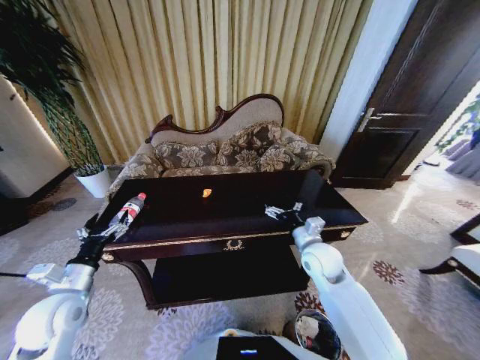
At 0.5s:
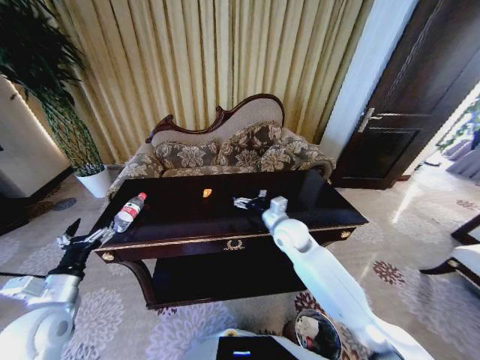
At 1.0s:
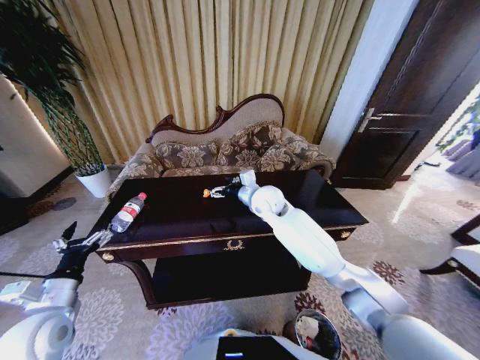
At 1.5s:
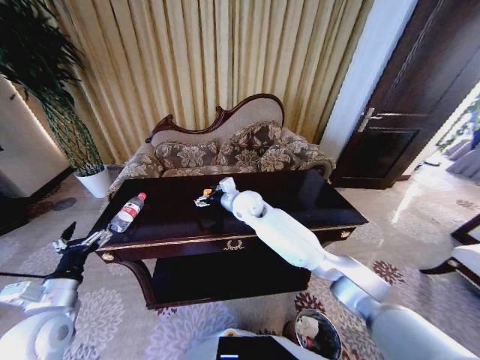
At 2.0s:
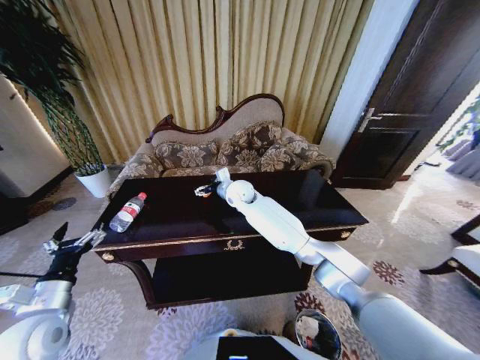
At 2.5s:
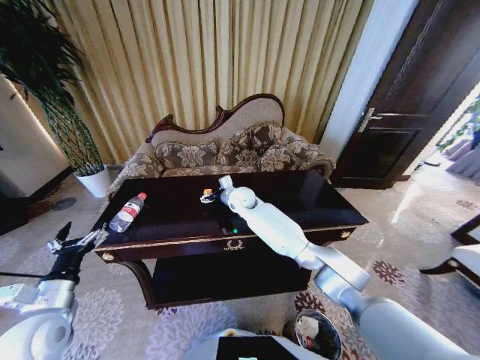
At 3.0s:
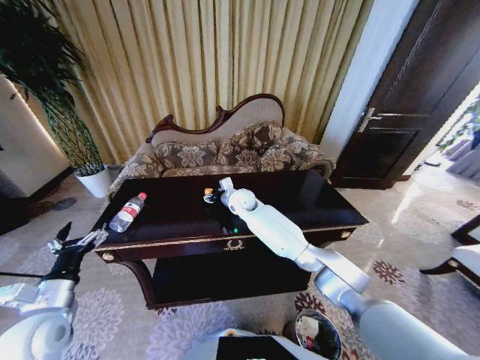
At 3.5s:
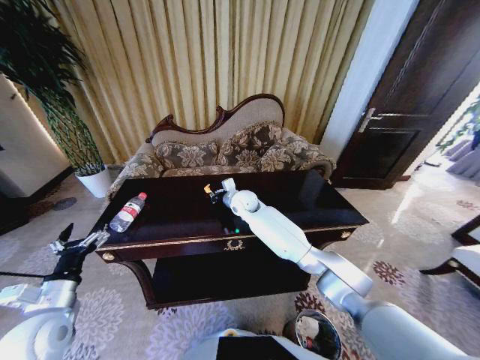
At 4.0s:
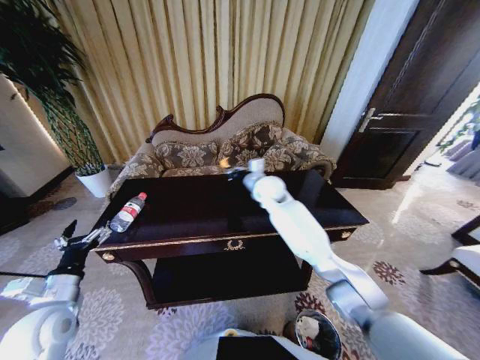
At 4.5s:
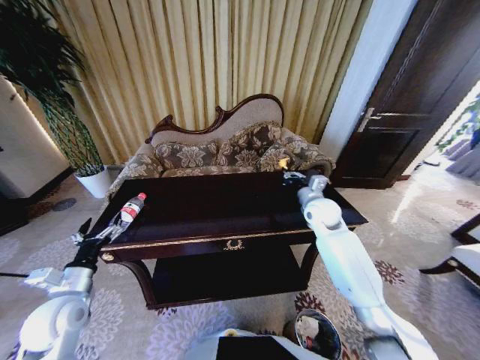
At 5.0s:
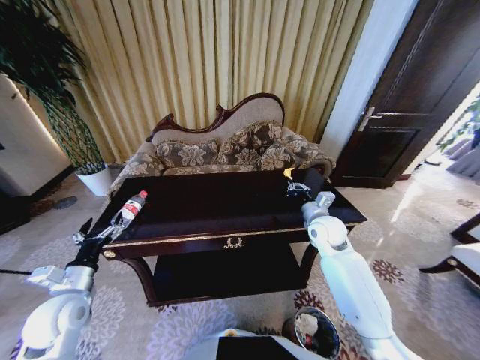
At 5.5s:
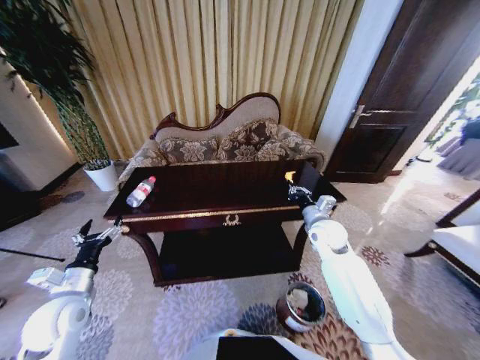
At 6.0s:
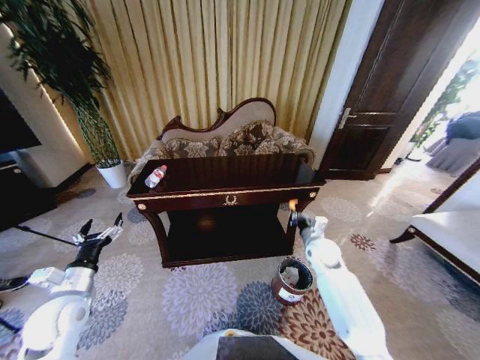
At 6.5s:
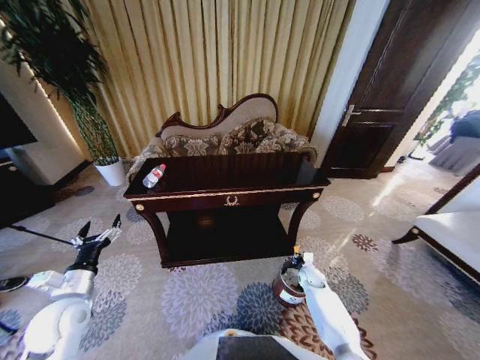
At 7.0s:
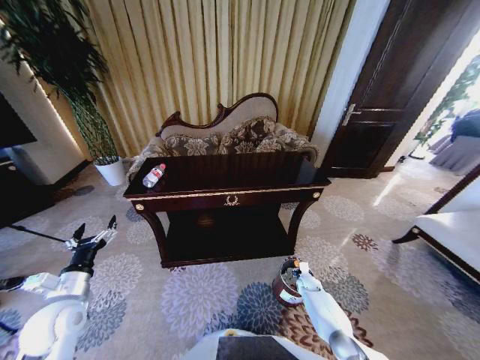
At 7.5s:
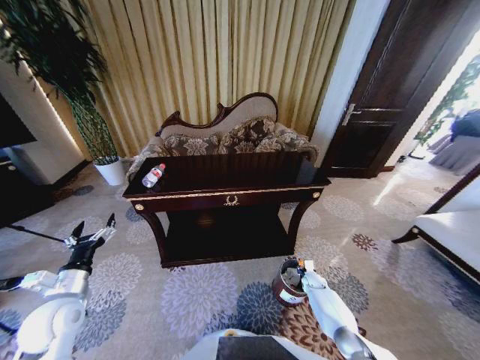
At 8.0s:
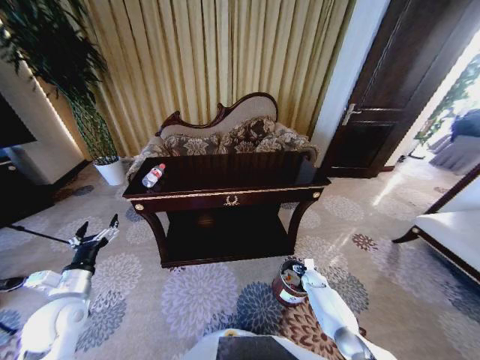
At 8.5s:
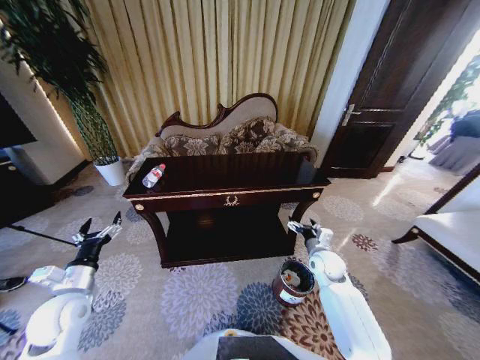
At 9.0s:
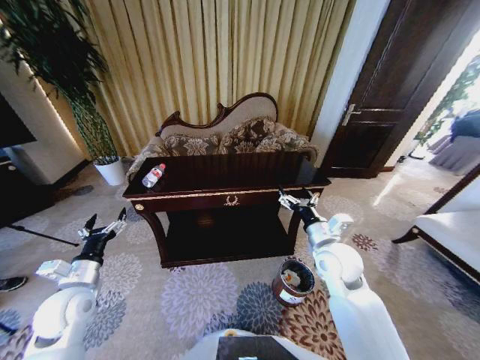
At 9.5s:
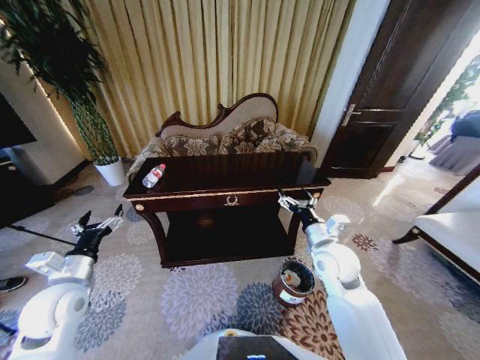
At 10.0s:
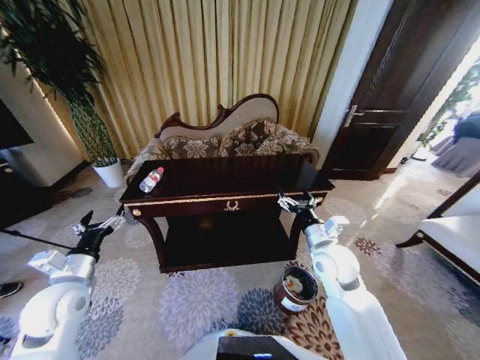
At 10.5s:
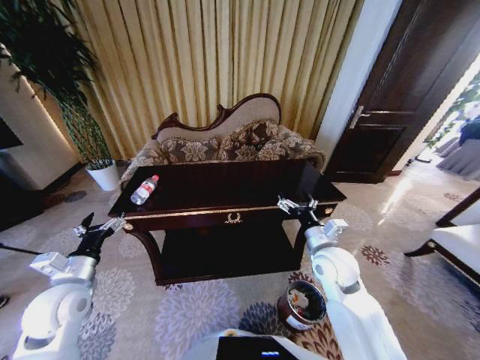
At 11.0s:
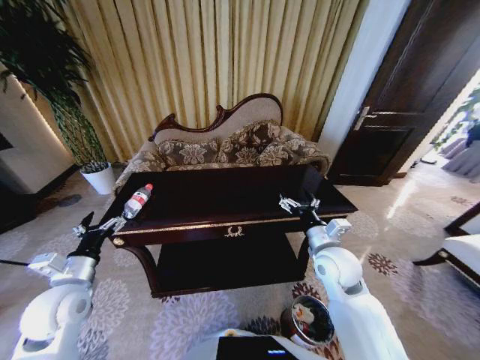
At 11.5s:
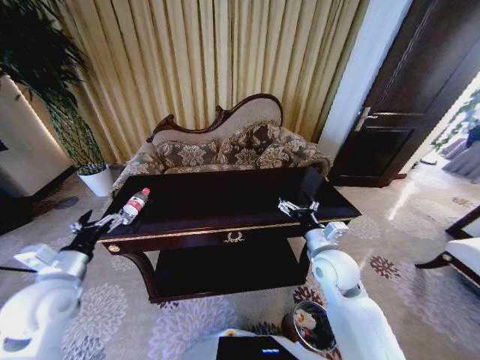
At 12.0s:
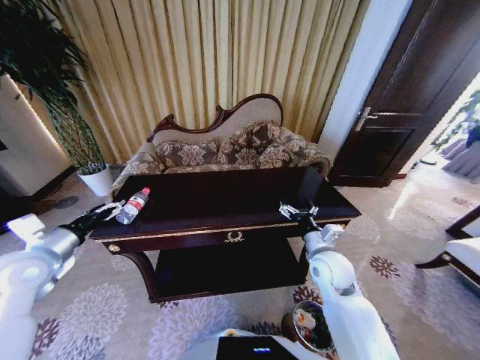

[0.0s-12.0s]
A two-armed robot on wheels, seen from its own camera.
Task of the whole recording: Move to the front of the table and place the trash on the table into the trash bin.
0.0s to 2.0s: The right gripper shifts roughly 30 cm forward and to the left.
2.0s to 4.0s: The right gripper shifts about 10 cm to the right, and closes its fingers.
4.0s to 6.0s: The right gripper moves to the right, downward and backward, roughly 25 cm.
6.0s to 8.0s: The right gripper goes roughly 25 cm downward, and opens up.
8.0s to 10.0s: The left gripper changes place by about 5 cm, while the right gripper moves upward, about 35 cm.
10.0s to 12.0s: The left gripper goes about 10 cm upward and to the left.

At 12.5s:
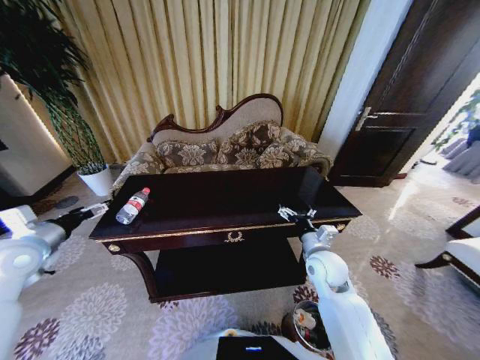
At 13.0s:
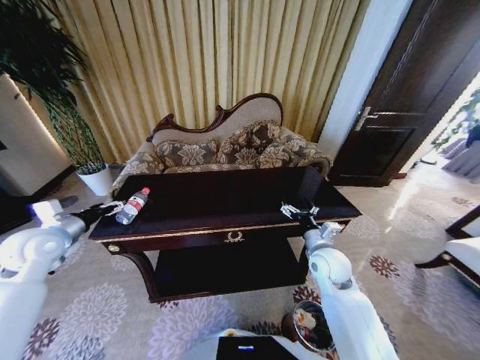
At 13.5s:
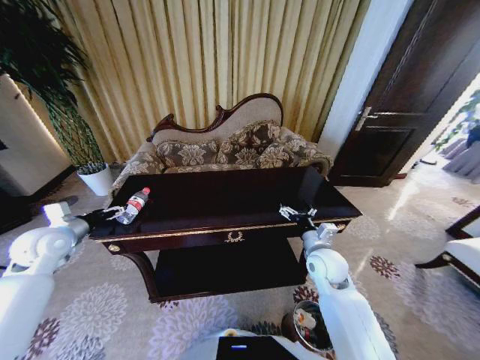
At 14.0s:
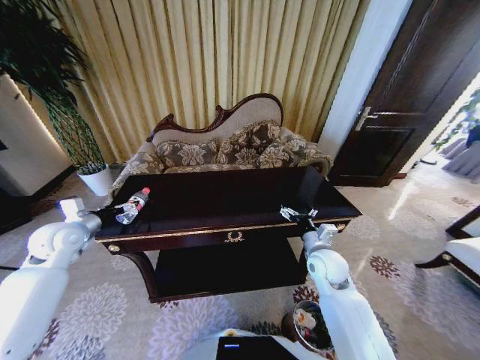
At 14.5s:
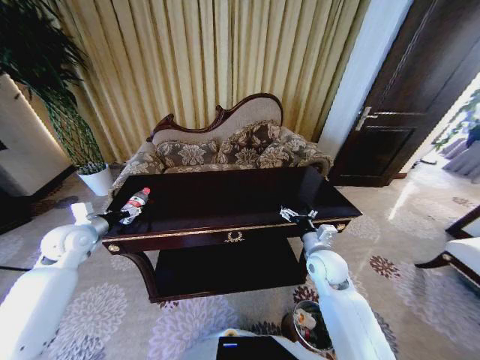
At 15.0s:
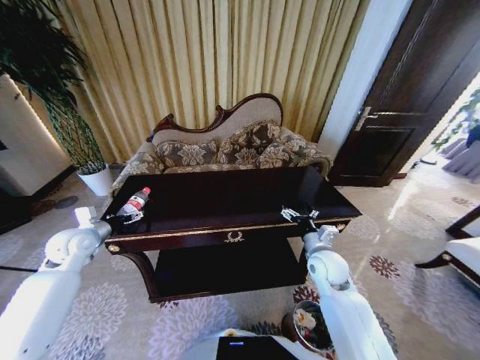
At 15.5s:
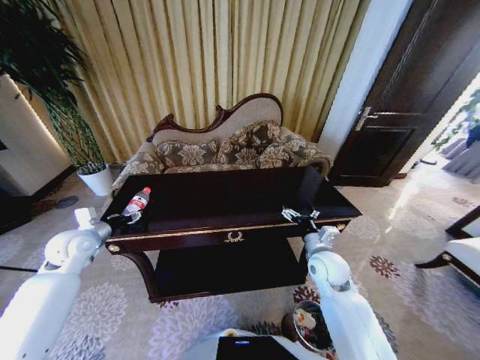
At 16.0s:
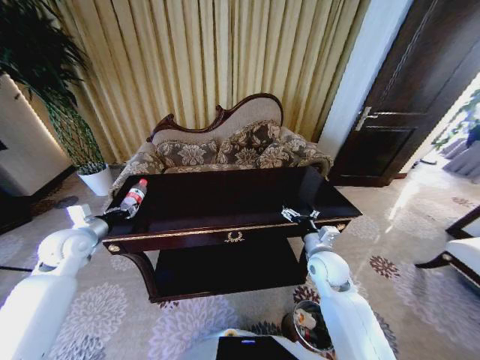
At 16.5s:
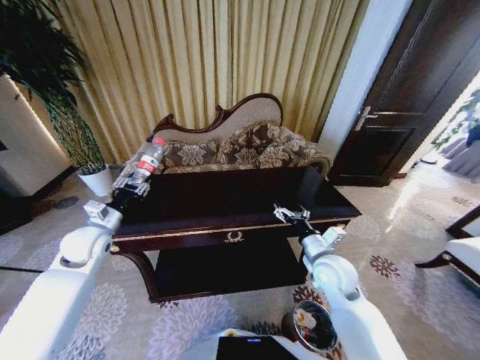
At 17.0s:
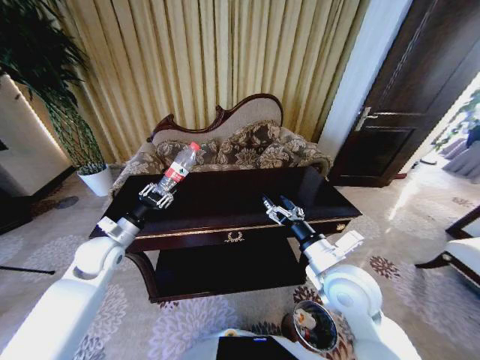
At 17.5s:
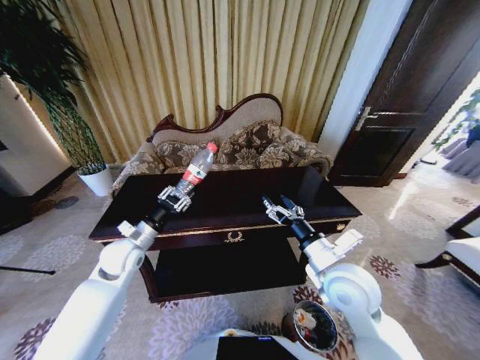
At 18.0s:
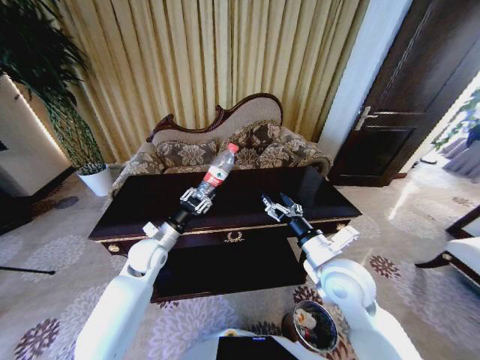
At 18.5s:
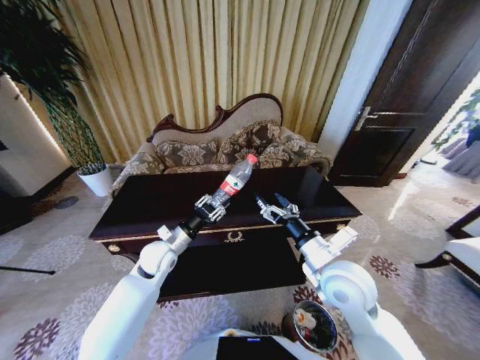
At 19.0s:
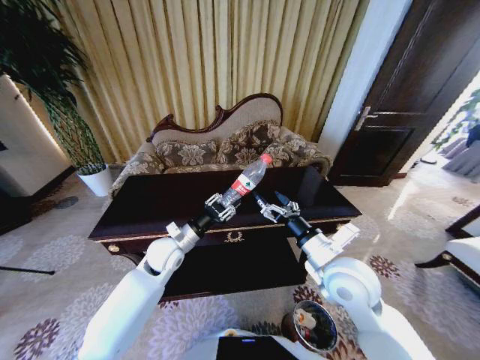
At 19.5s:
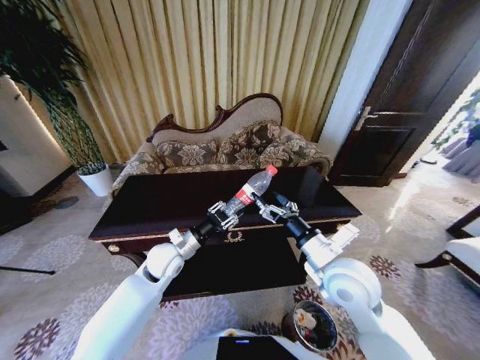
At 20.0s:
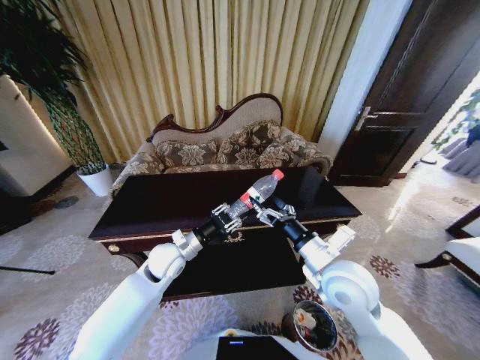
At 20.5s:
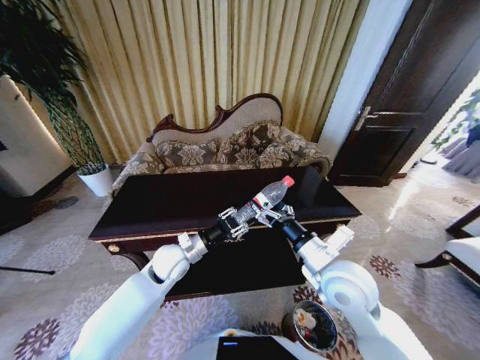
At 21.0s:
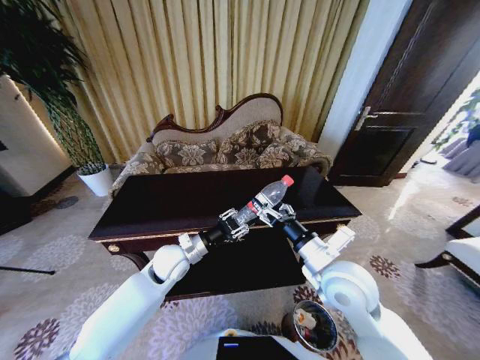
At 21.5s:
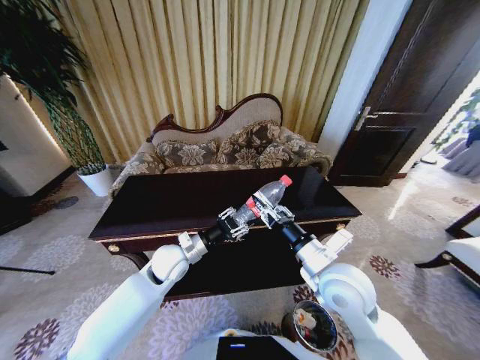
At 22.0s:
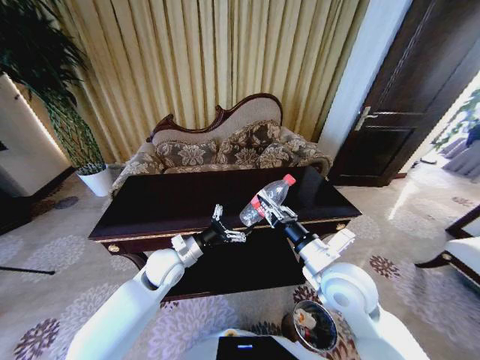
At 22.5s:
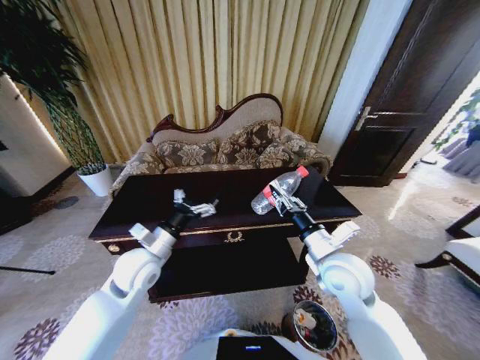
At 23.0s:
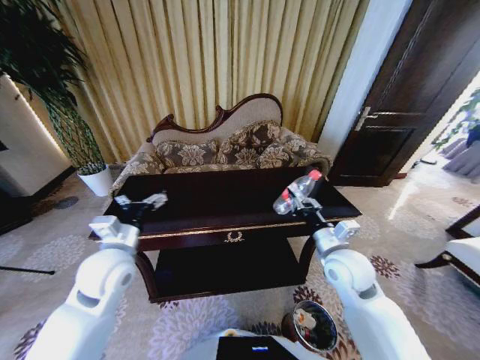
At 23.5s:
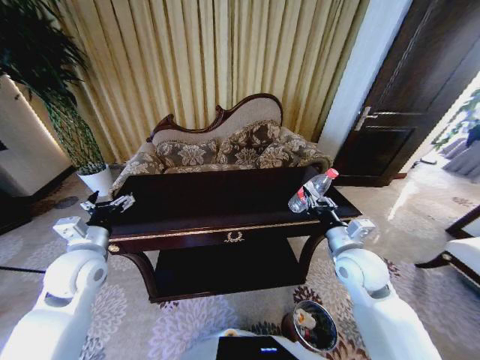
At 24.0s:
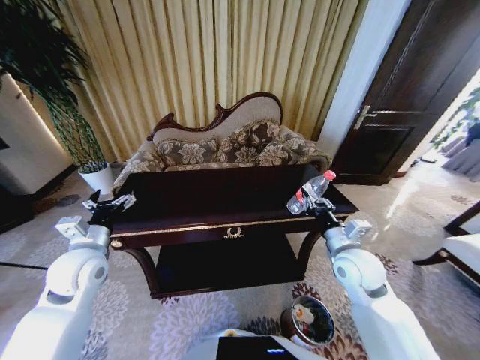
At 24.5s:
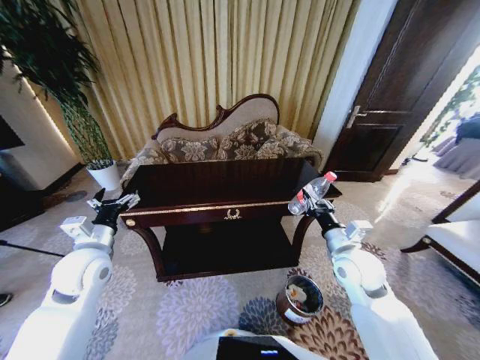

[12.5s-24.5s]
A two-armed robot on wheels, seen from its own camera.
Task of the whole recording: Move to the front of the table and place the trash on the table into the trash bin.
12.5s to 14.5s: The left gripper goes roughly 10 cm forward and downward.
14.5s to 16.5s: The left gripper shifts approximately 5 cm to the right, and closes up.
16.5s to 18.5s: The right gripper goes approximately 5 cm upward; the left gripper goes some 20 cm to the right and downward.
18.5s to 20.5s: The grippers stay close to where they were, moving slightly.
20.5s to 22.5s: The right gripper closes up, while the left gripper shifts roughly 10 cm to the left and upward, and opens its fingers.
22.5s to 24.5s: The left gripper heads to the left, covering about 10 cm; the right gripper goes roughly 5 cm to the right.

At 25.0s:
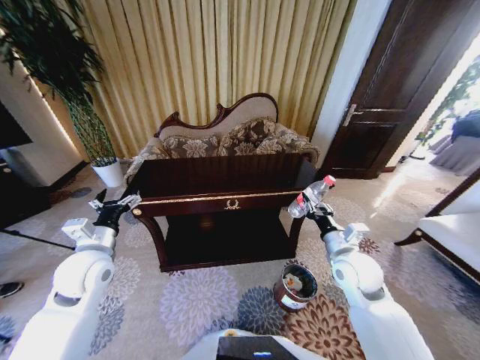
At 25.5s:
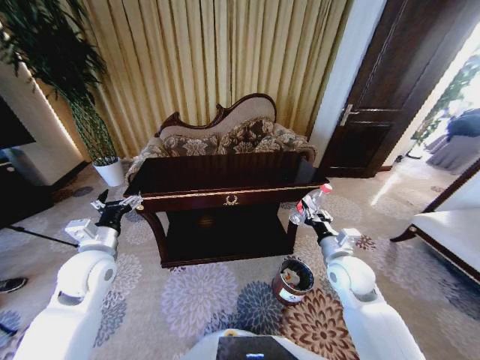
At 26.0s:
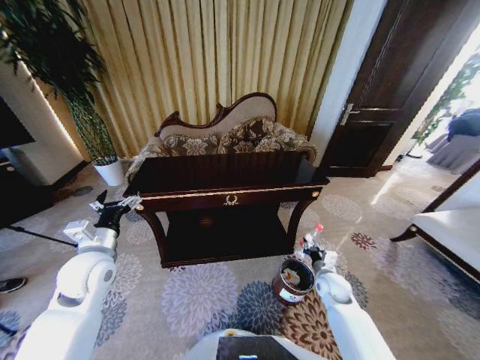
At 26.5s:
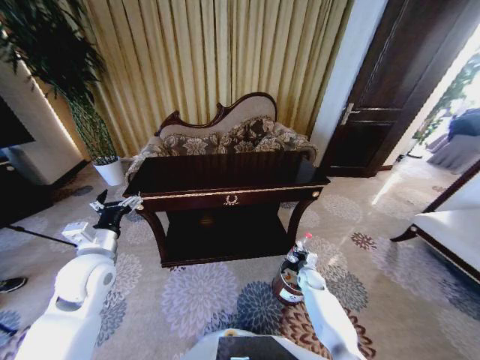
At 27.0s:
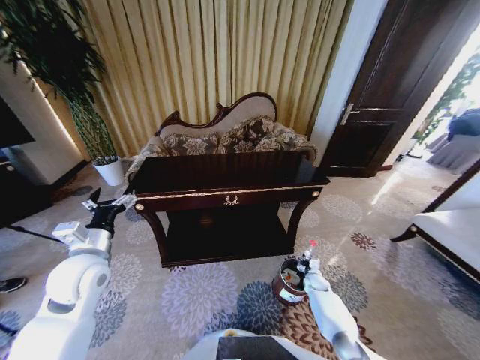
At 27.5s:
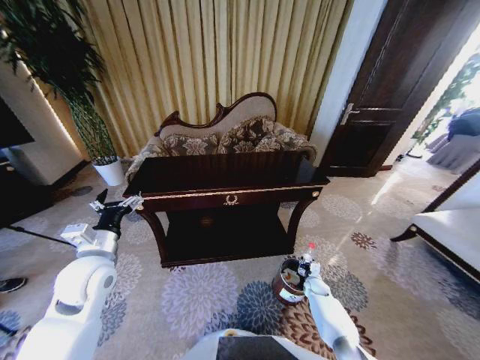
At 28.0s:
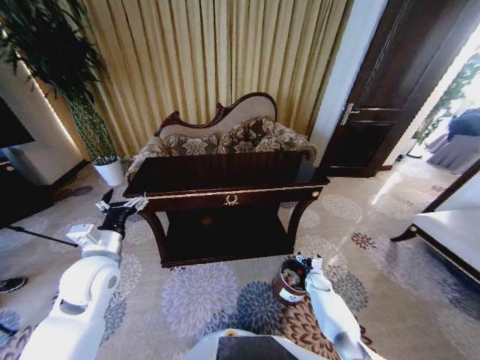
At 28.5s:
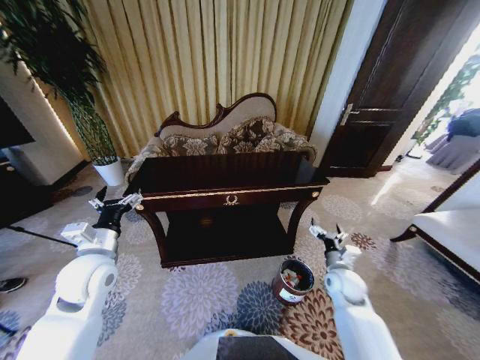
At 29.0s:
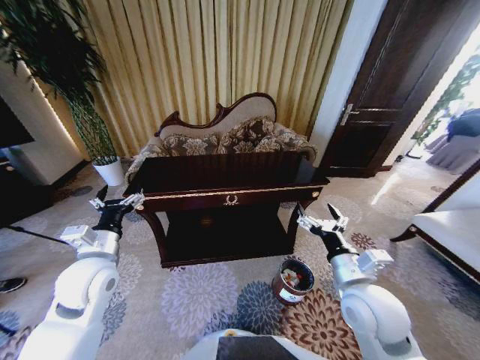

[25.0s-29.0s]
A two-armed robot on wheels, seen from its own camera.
Task of the whole recording: Move to the front of the table and place the trash on the table into the trash bin.
25.0s to 27.0s: The right gripper is displaced downward by about 35 cm.
27.0s to 29.0s: The right gripper heads upward and backward, covering some 40 cm, and opens its fingers.
